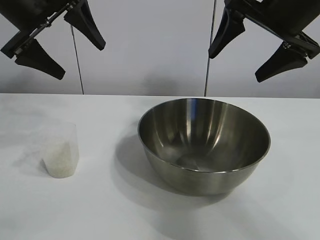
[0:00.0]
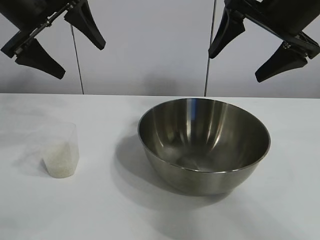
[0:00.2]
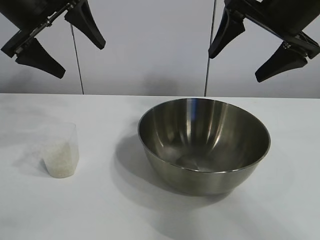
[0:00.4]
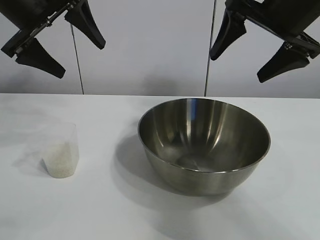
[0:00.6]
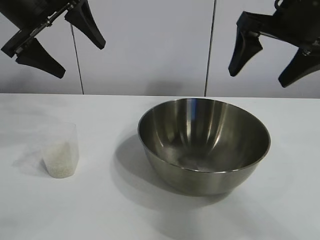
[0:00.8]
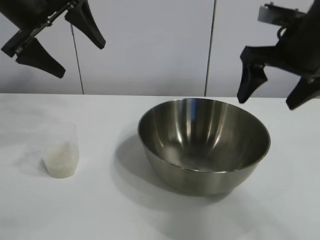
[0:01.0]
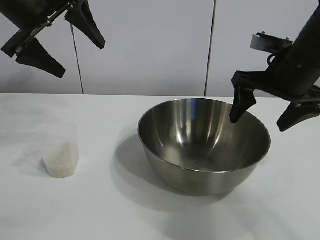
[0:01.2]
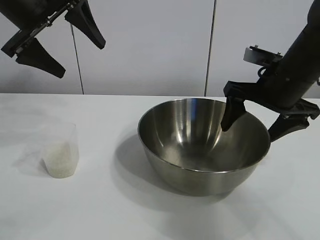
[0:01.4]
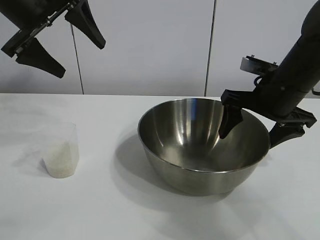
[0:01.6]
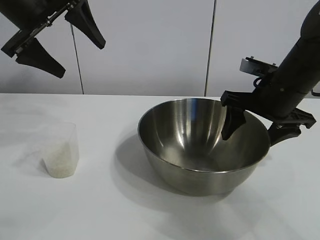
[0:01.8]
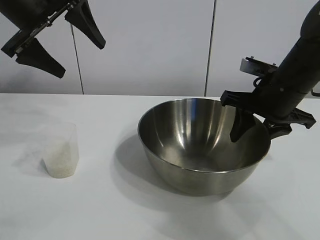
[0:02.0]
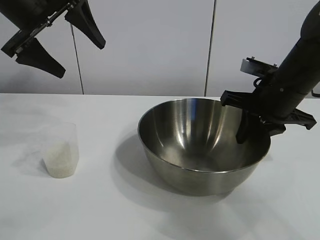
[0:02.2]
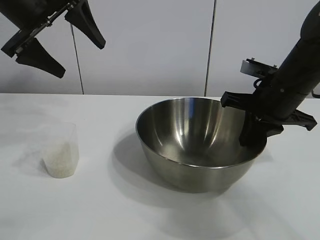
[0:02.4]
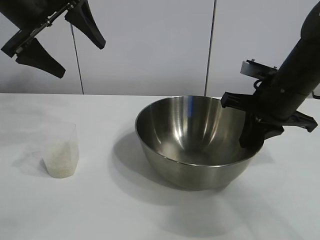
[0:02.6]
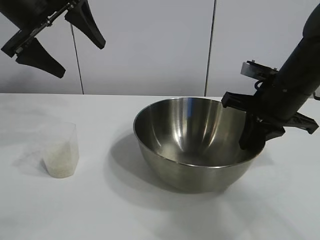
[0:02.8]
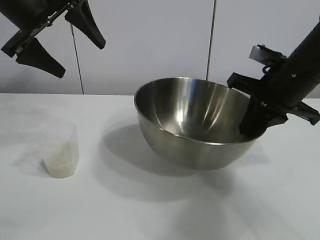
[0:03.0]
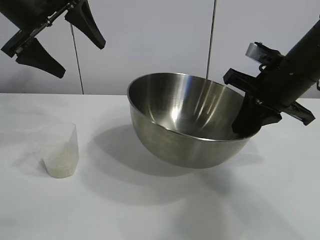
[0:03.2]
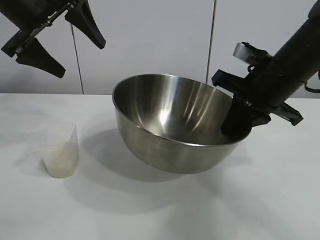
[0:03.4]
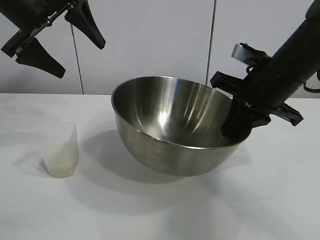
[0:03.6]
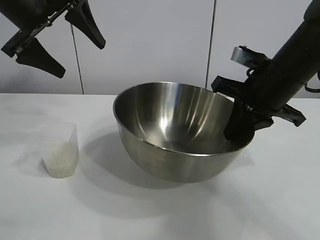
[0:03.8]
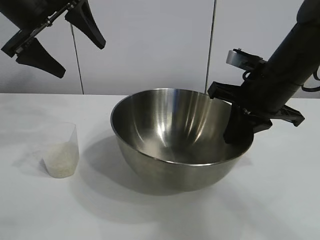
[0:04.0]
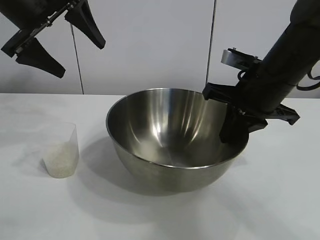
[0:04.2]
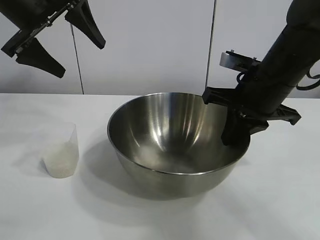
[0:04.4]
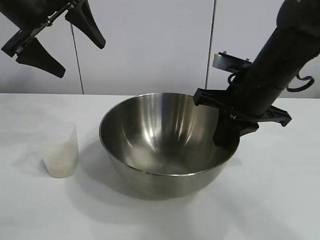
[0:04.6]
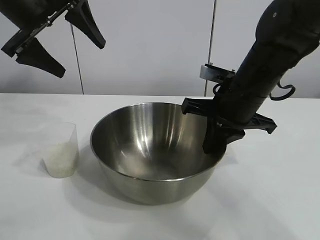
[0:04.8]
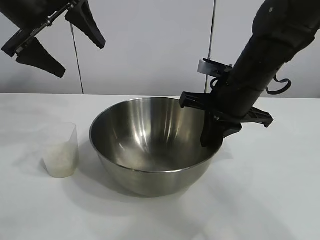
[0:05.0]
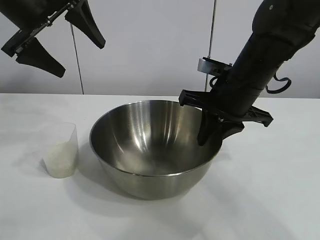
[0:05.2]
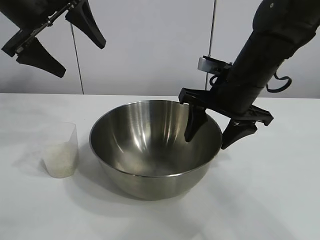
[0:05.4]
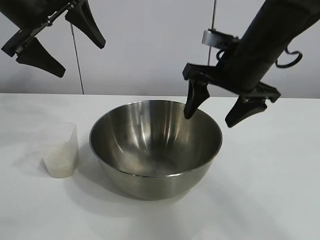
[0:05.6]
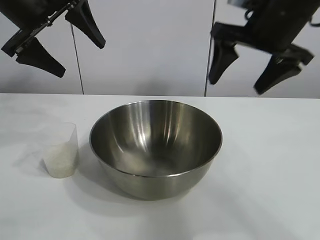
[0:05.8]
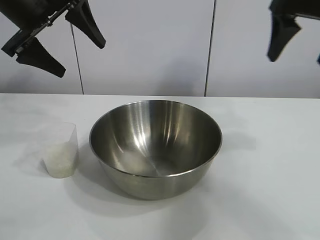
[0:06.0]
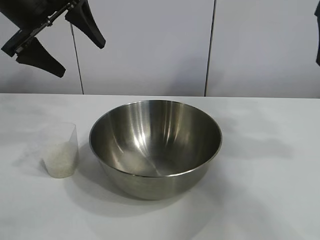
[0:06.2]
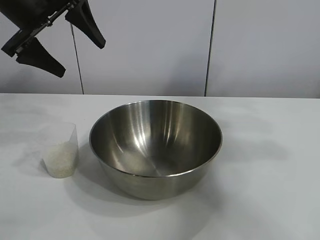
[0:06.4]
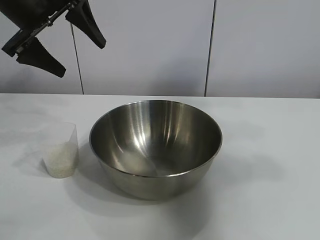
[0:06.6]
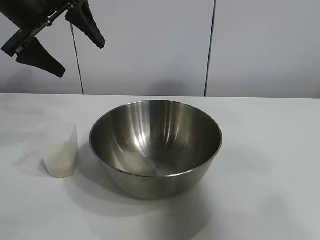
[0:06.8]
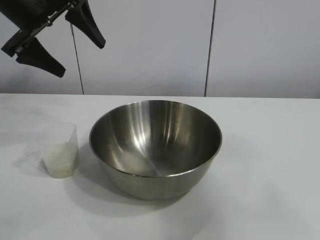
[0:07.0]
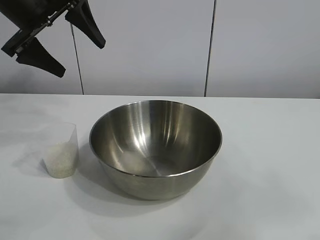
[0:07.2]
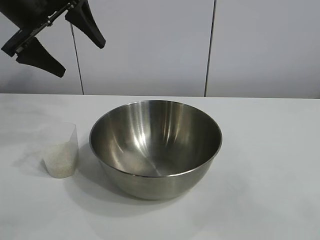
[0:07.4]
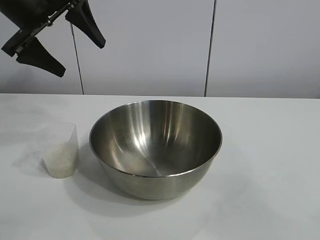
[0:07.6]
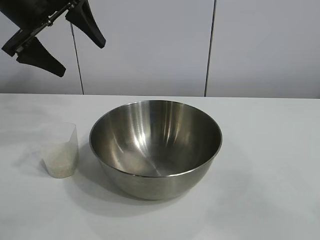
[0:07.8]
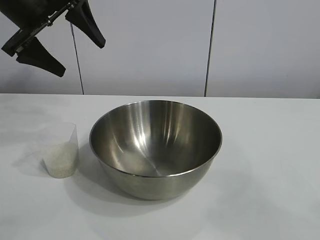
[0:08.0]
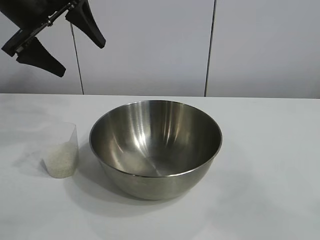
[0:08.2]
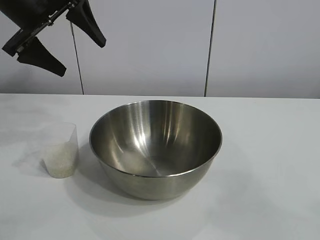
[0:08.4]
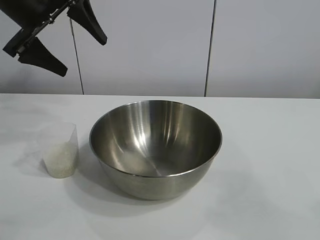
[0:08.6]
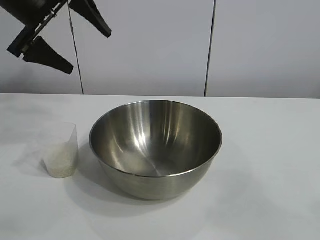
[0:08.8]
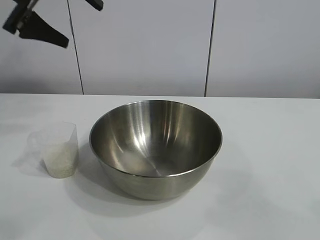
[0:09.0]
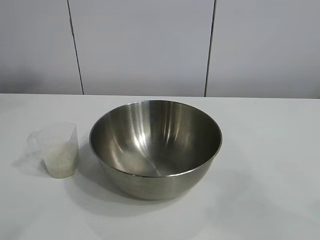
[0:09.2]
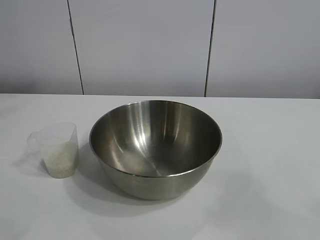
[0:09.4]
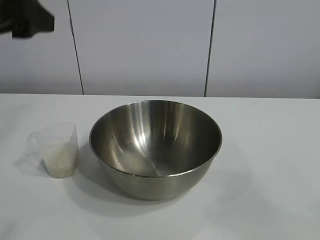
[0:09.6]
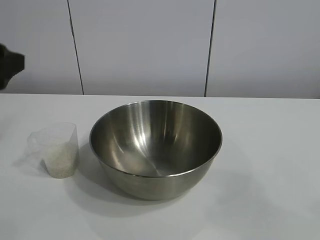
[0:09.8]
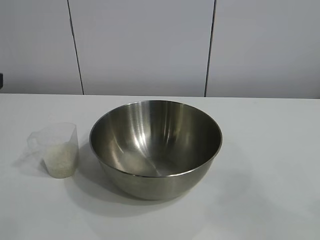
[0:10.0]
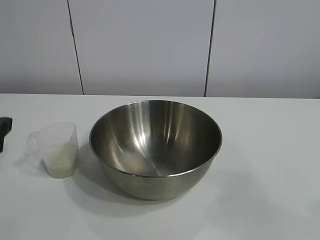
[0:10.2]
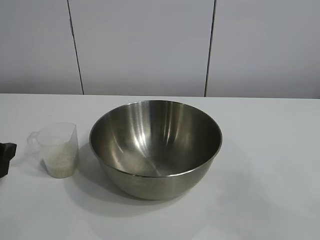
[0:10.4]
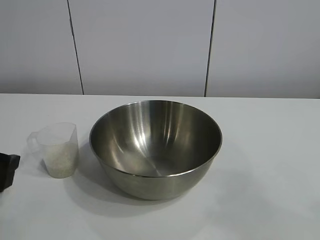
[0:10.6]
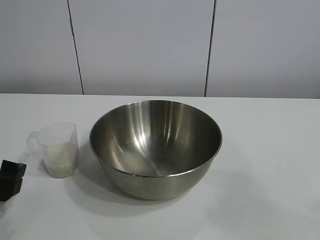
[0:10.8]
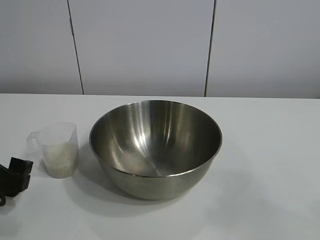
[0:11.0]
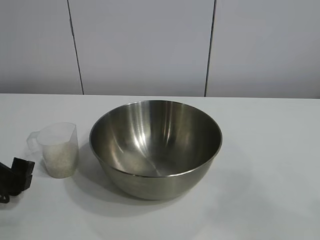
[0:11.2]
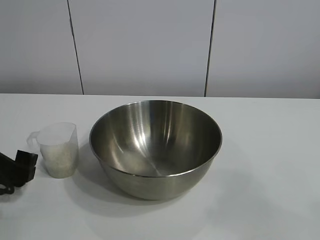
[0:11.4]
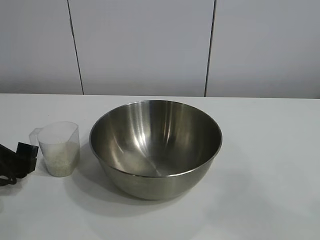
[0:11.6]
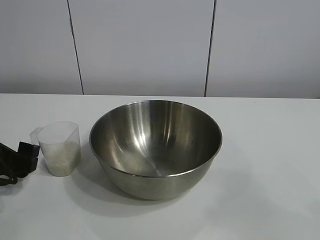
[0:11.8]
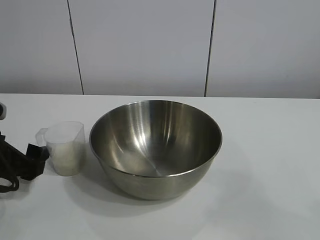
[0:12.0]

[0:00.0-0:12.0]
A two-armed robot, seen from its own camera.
Task of the whole recording: the right gripper grasp the rice container and place it in the center of the table, the left gripper grasp the rice scoop and pour the rice into the rice container.
Step, 0:00.6 to 0:05.4: Move the bowl in the center of view with right gripper.

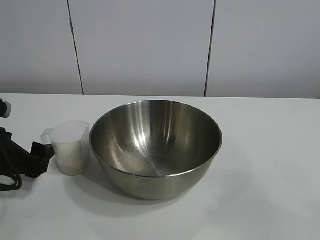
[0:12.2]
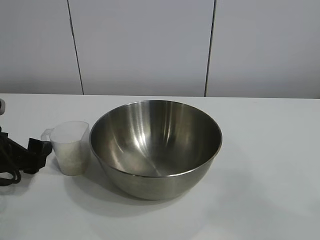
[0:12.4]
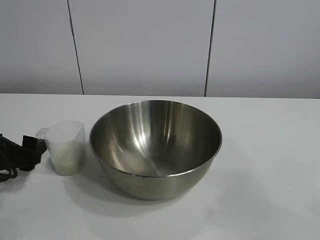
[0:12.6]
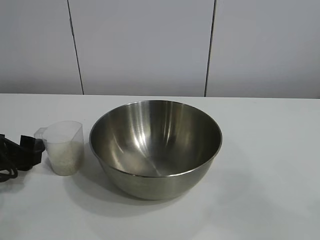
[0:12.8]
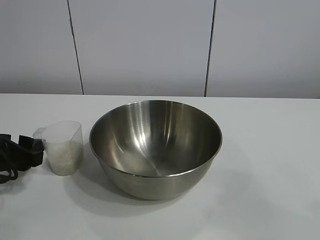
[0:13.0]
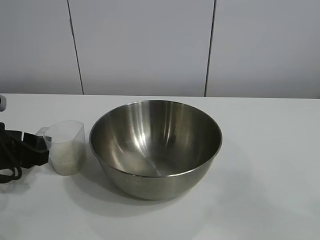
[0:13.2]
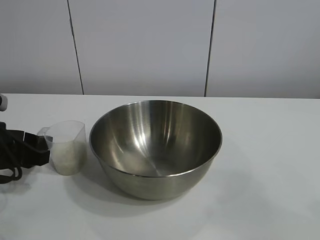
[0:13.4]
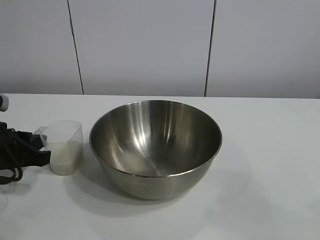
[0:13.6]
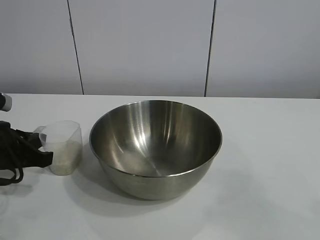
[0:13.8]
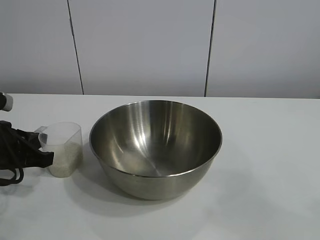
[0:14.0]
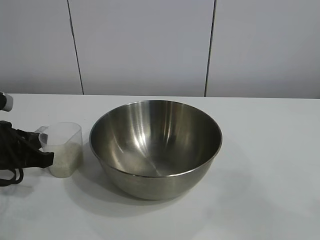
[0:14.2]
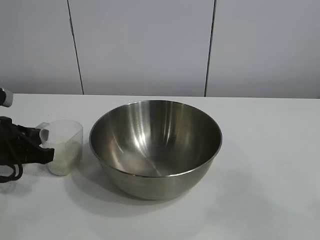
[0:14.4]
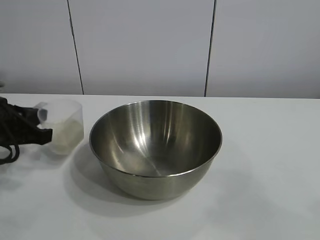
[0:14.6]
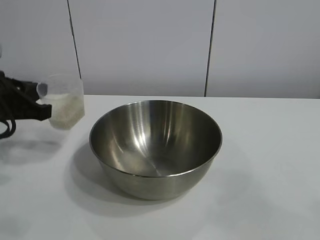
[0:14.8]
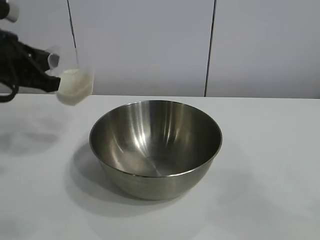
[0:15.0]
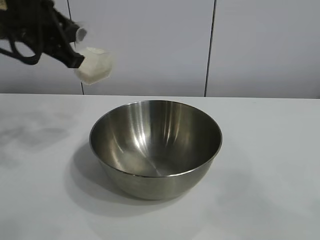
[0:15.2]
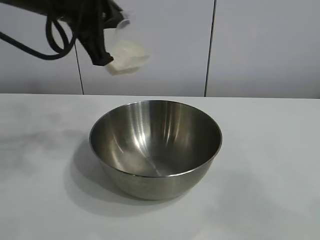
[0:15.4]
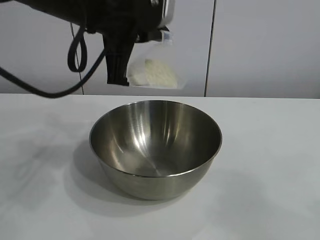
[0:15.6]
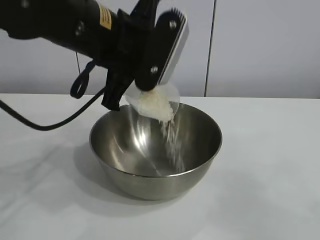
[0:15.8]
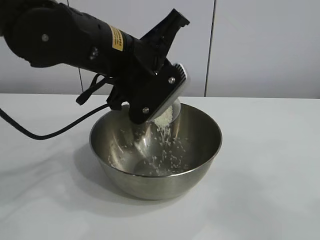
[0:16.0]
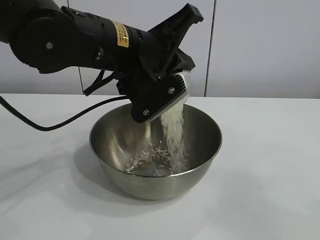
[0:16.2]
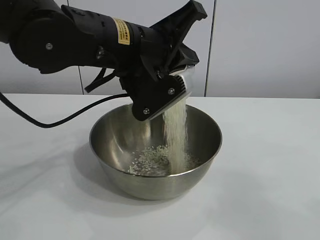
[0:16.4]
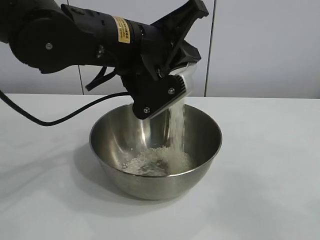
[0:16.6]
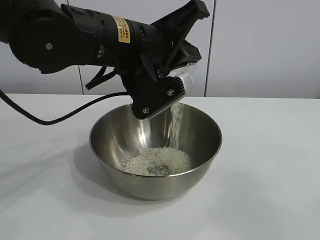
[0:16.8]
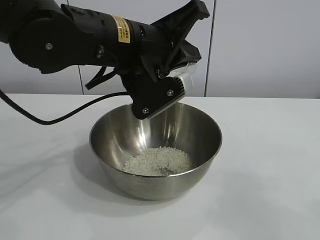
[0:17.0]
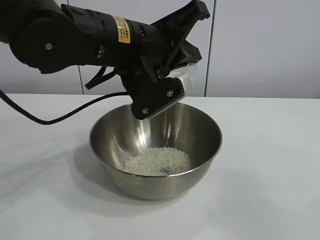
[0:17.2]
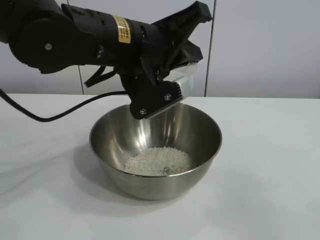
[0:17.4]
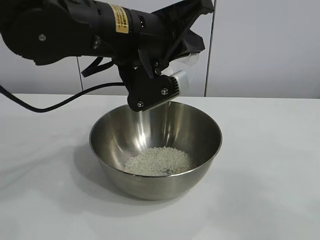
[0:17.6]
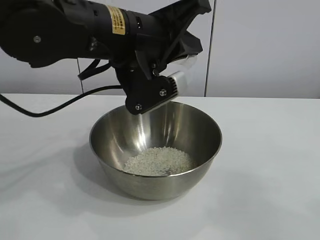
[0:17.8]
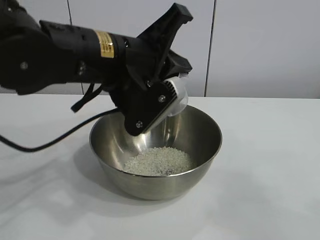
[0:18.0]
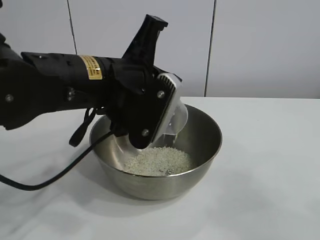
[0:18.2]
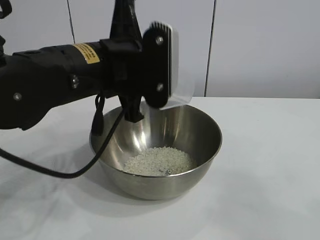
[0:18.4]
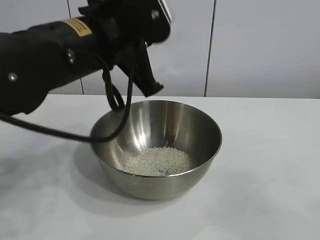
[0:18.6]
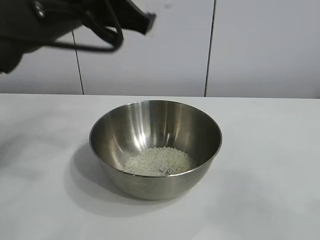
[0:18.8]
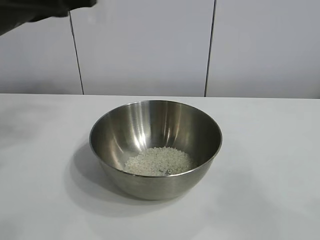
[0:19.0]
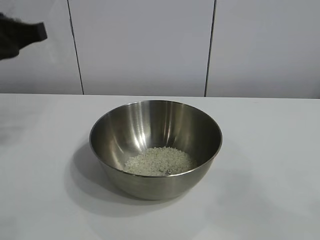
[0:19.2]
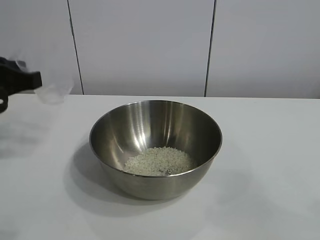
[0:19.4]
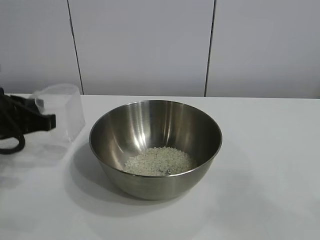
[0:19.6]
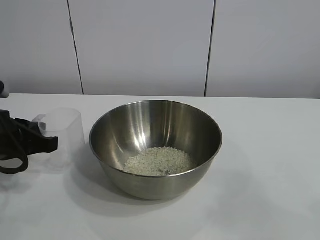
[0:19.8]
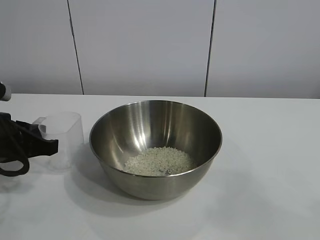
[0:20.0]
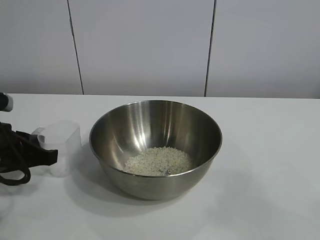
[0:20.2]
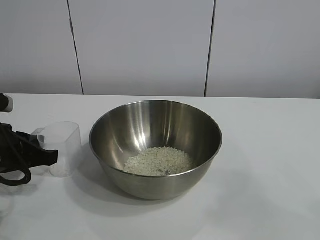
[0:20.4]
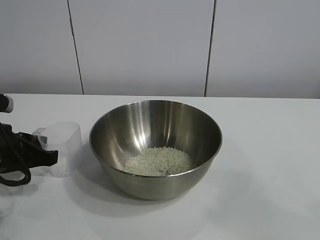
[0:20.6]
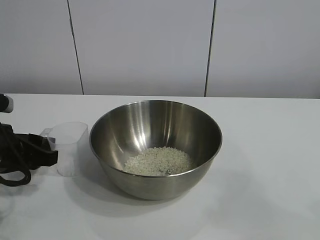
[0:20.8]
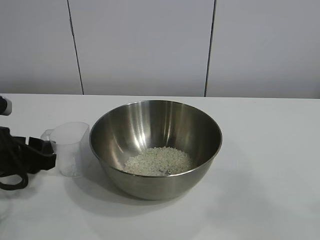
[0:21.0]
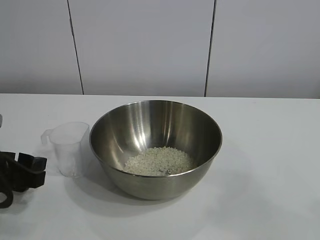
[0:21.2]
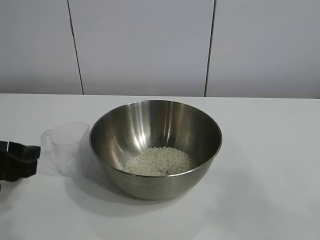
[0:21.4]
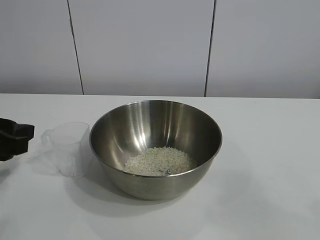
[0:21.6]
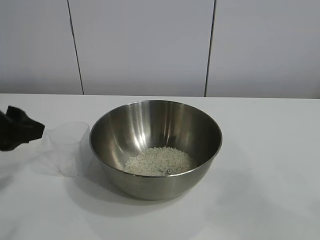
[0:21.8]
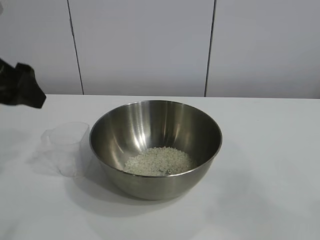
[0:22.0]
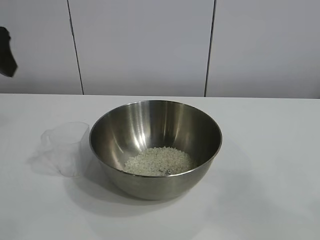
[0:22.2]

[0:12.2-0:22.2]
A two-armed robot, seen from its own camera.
Task of the whole recording: the right gripper grasp the rice container and place it in the center of the table, the left gripper grasp the rice scoop and pour the rice into the rice container.
Step, 0:14.2 to 0:17.0: Pour the rice from the cup into the bowl with the left gripper.
Step, 0:17.2 to 0:20.8: Place the cup on the table with the left gripper.
